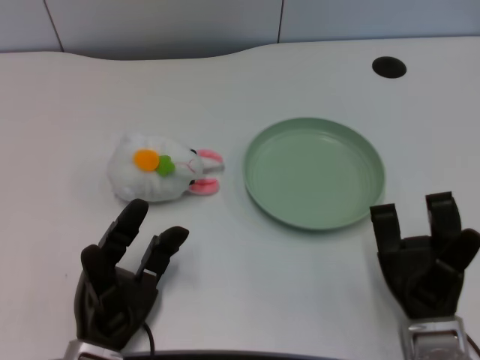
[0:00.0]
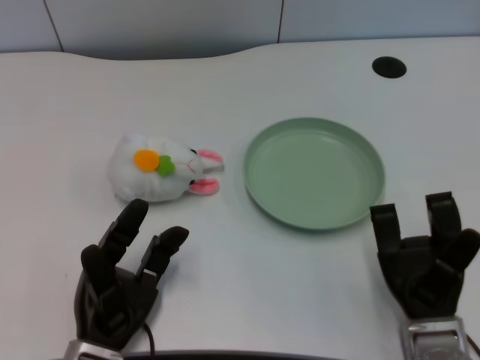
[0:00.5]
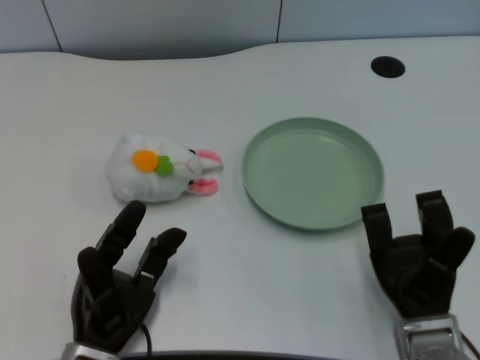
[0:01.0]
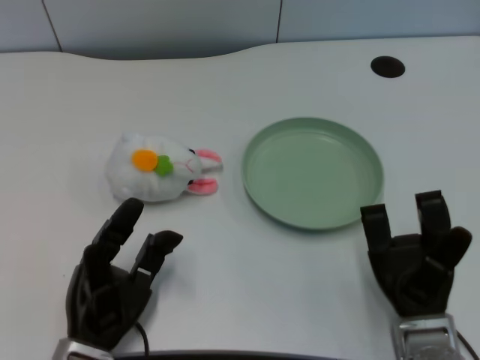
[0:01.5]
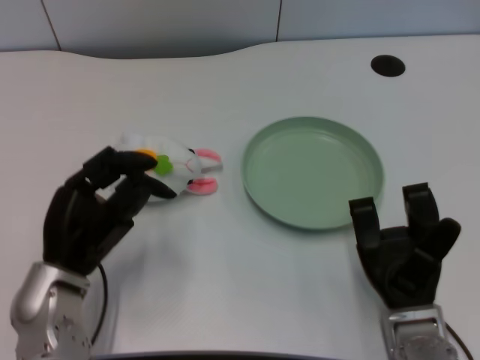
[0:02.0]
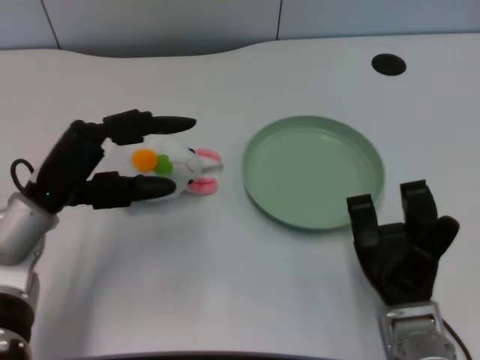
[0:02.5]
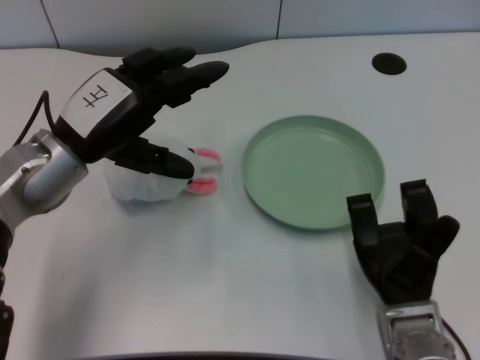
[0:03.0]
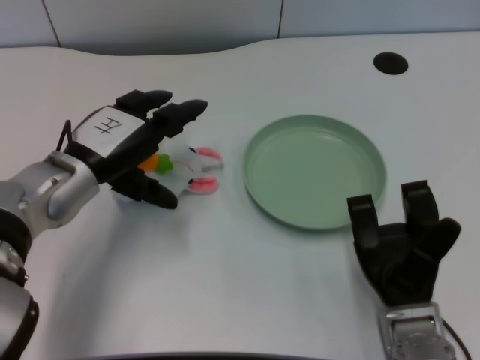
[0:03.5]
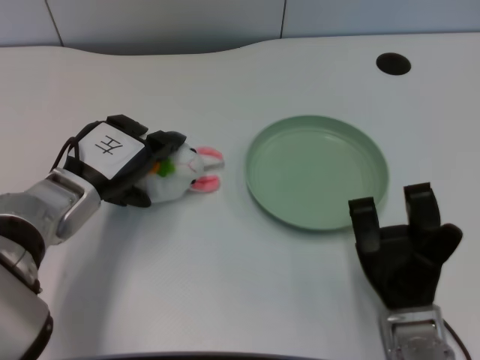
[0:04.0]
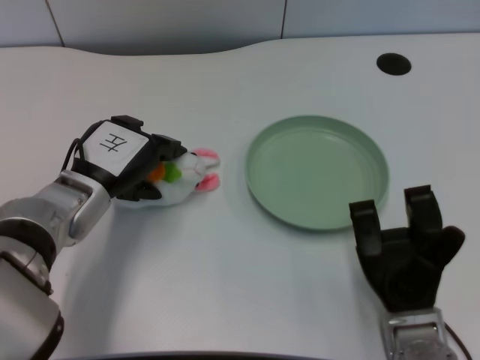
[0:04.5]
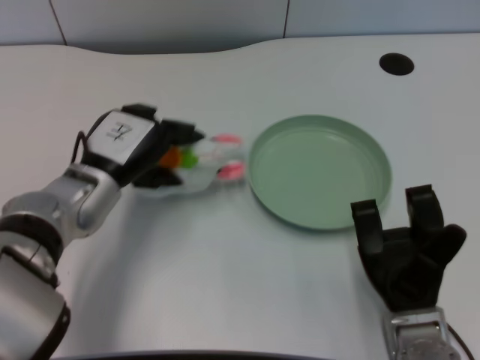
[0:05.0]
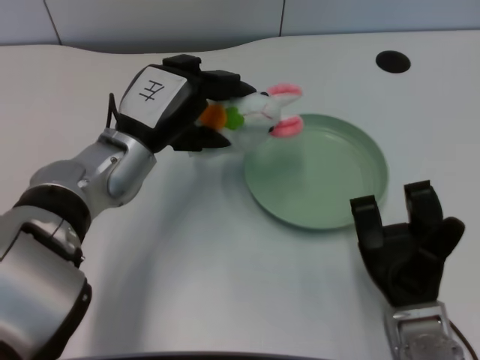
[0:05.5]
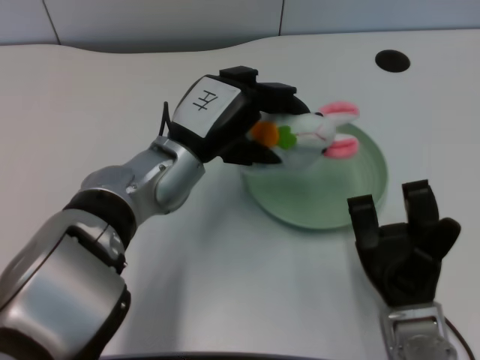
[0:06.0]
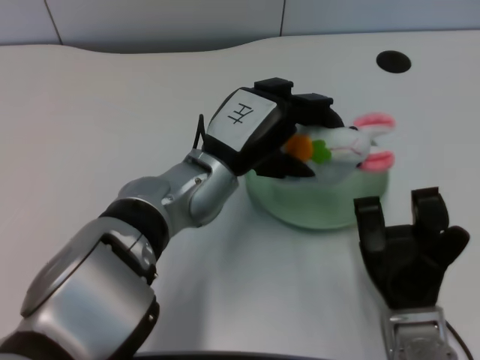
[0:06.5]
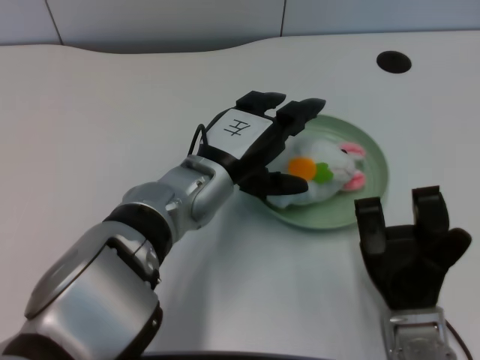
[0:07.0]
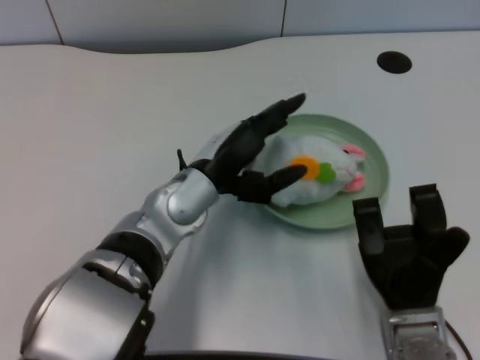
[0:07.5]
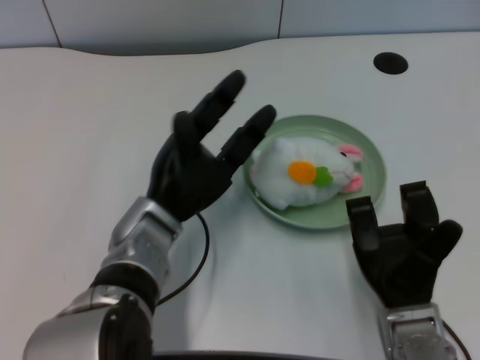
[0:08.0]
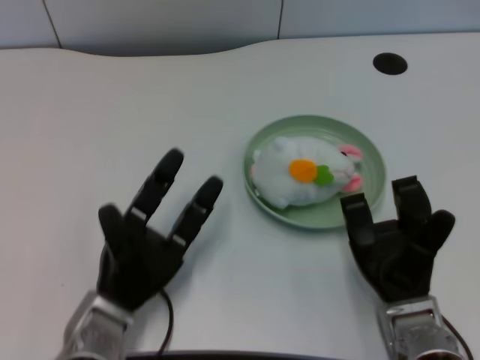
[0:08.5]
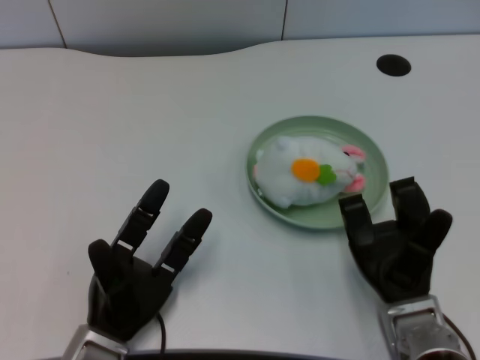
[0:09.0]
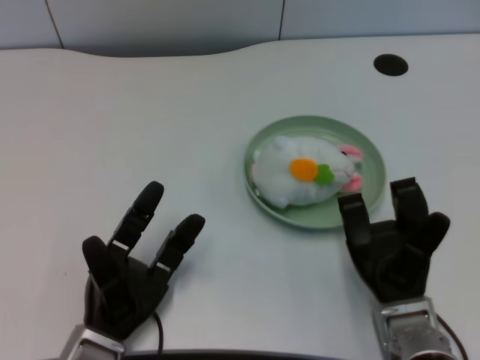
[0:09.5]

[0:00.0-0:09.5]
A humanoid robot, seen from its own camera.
Task of the whole recording: pick up the rabbit doll from the table and place it on the plate.
Step, 0:01.5 to 0:04.5: Grasp the rabbit doll with the left gripper.
Step, 0:05.0 to 0:06.5: Place the rabbit doll into the plate with the left gripper.
0:02.0 to 0:04.0: The left hand moves forward, roughly 10 cm.
0:04.0 to 0:05.5: The left hand shifts roughly 5 cm to the right.
0:05.5 to 0:07.5: The left hand moves to the right, approximately 5 cm.
0:07.5 to 0:09.5: The left hand moves downward, backward and to the left, roughly 20 cm.

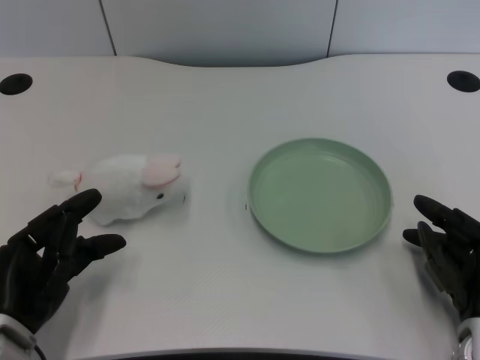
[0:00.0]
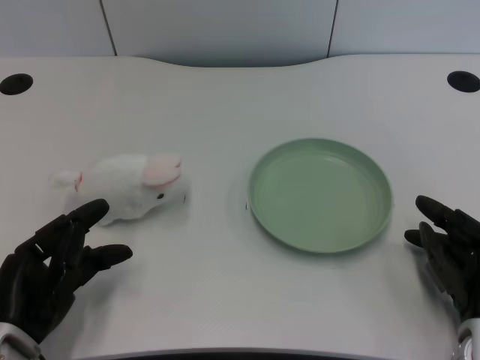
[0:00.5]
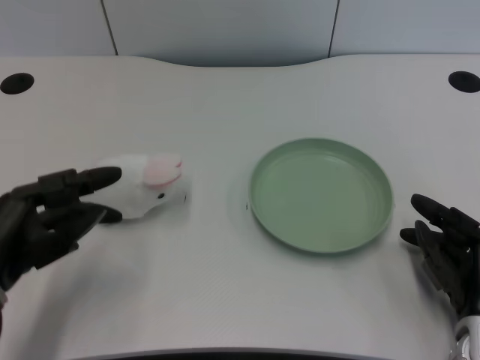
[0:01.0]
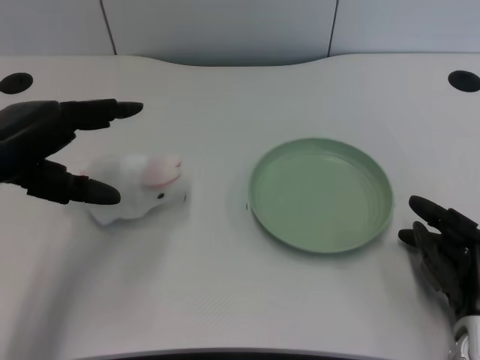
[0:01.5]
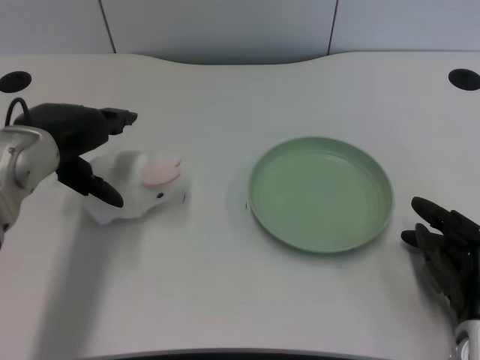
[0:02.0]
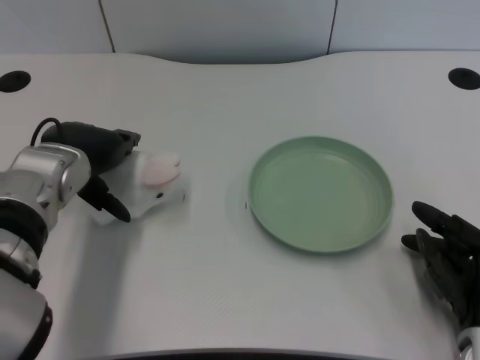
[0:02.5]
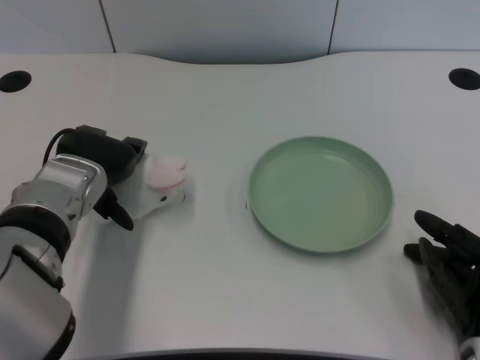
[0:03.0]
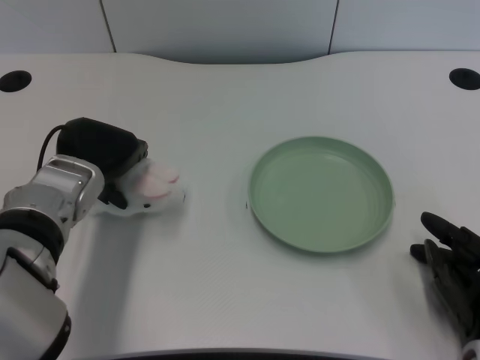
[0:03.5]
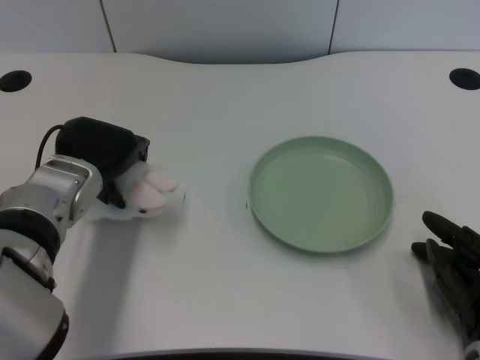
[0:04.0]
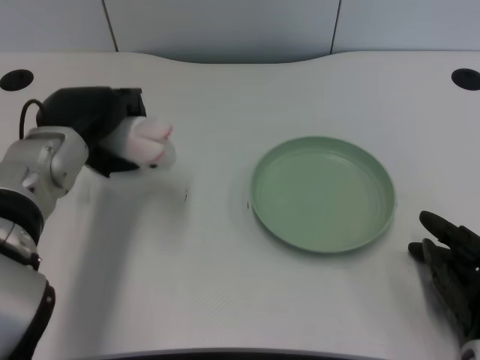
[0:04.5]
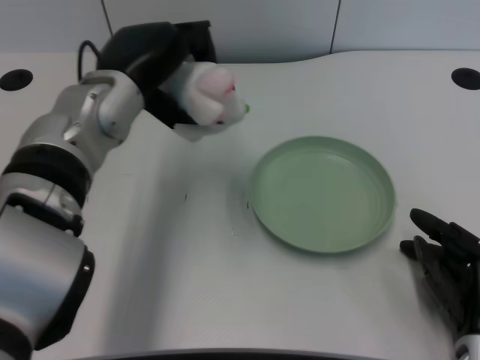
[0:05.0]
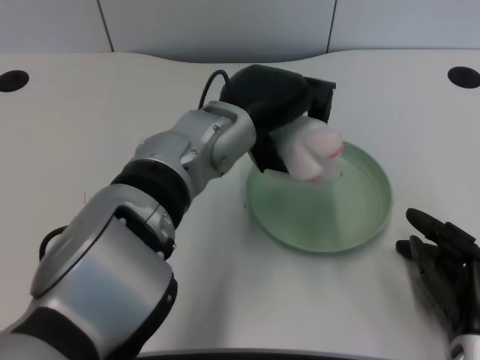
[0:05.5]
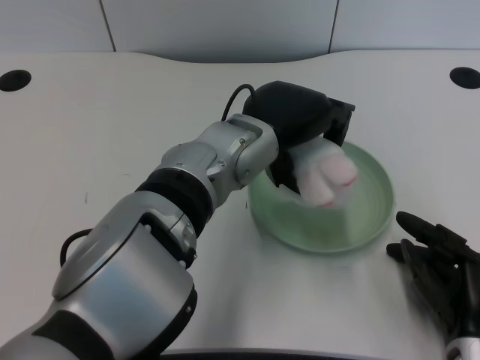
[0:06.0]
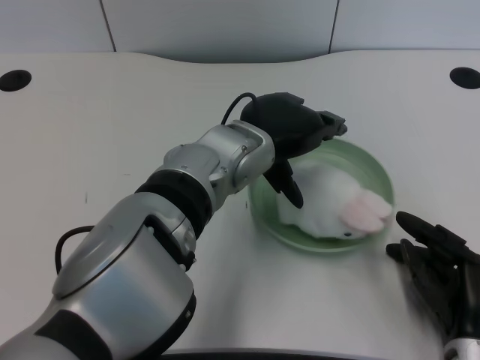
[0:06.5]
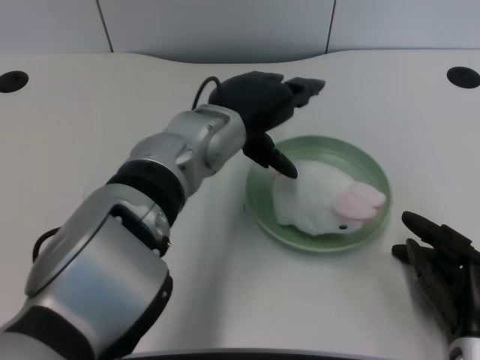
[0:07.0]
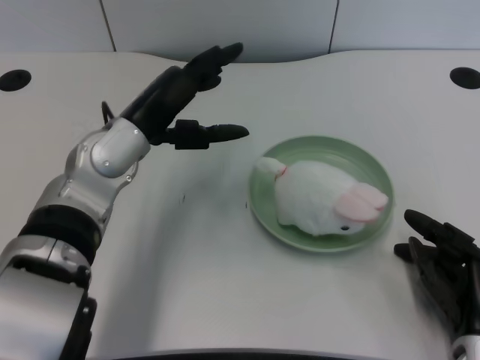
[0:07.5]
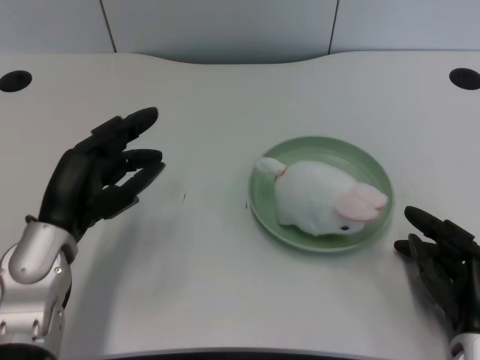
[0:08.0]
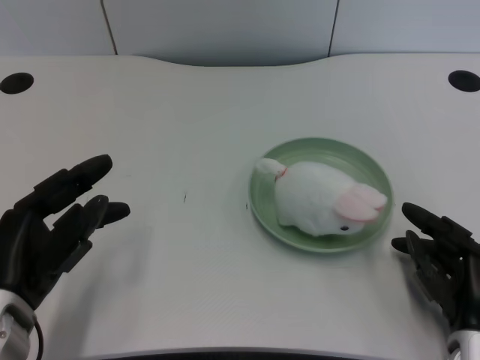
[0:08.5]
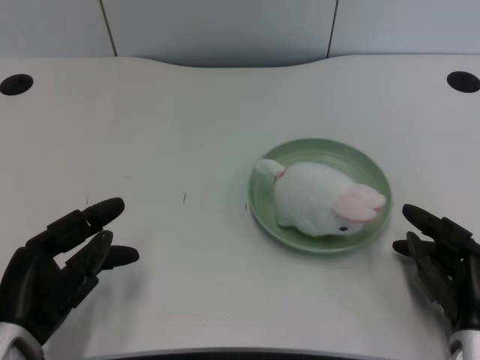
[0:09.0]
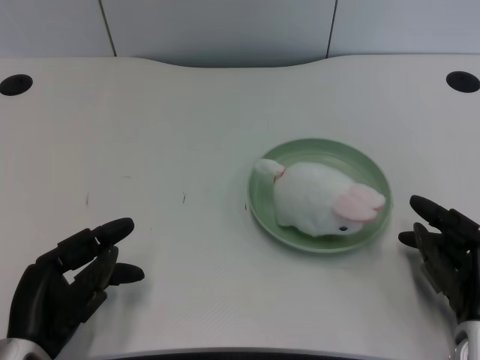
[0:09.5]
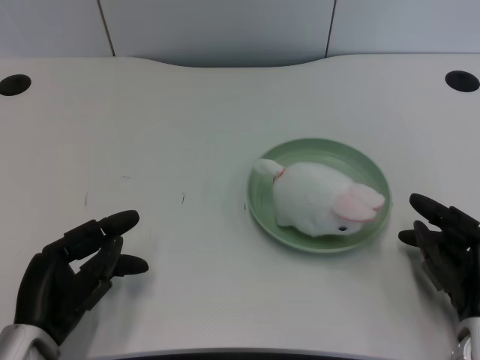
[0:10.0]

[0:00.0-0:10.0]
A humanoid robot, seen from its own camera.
Task of the whole recording: pick up the rabbit doll from the table and place it on the plate.
Step, 0:01.0 to 0:04.0: Grasp the rabbit doll with the left gripper.
Step, 0:04.5 to 0:06.0: Place the rabbit doll into the plate with the left gripper.
0:02.0 to 0:04.0: The left hand heads downward, covering some 5 cm.
0:04.0 to 0:06.0: The left hand is displaced to the right by roughly 15 cm.
0:06.0 to 0:08.0: The left hand heads to the left, covering approximately 20 cm.
0:08.0 to 0:10.0: The left hand travels backward and downward by some 10 cm.

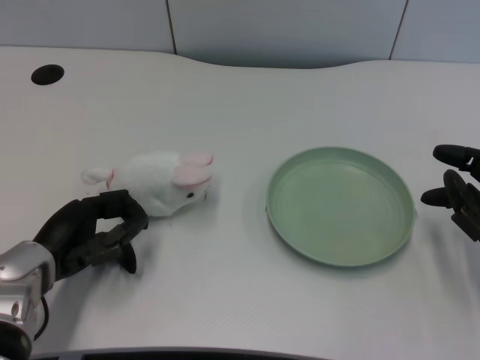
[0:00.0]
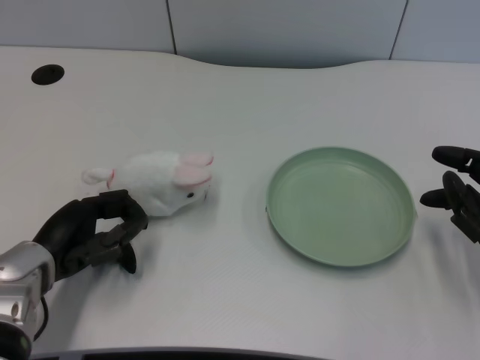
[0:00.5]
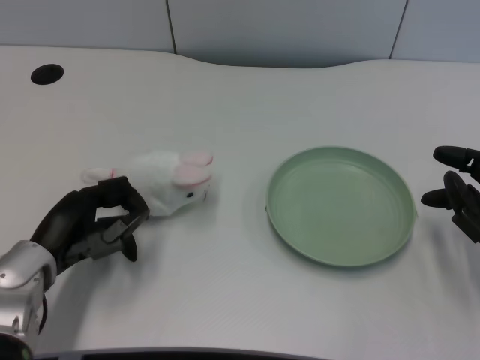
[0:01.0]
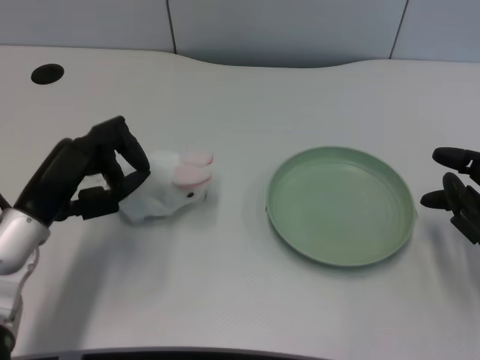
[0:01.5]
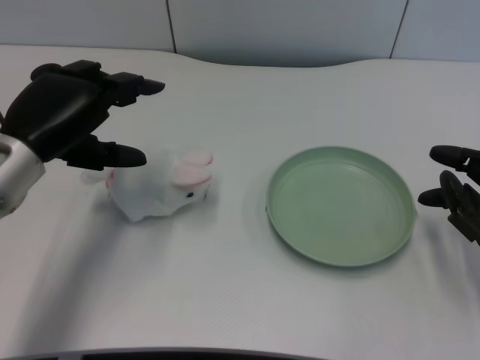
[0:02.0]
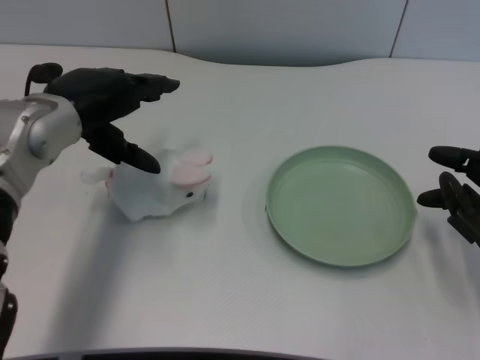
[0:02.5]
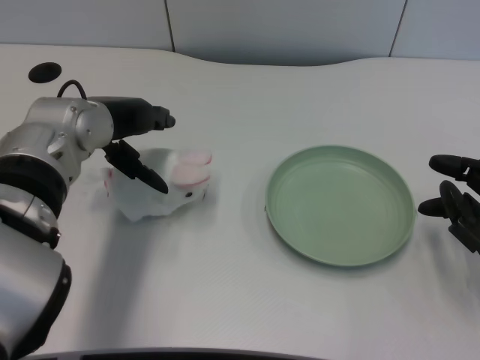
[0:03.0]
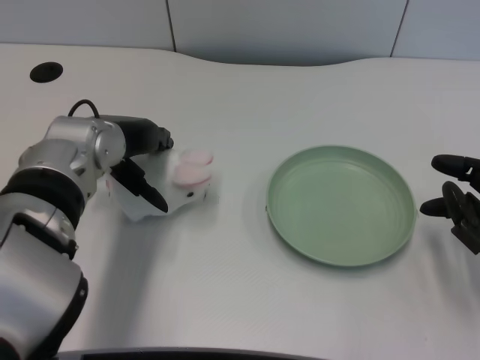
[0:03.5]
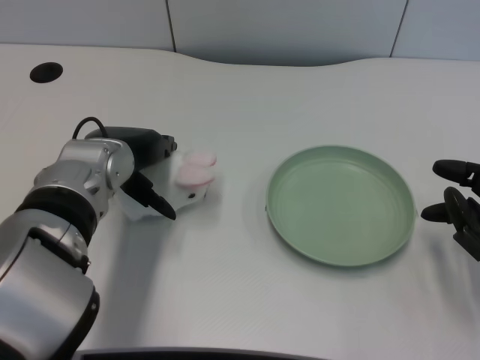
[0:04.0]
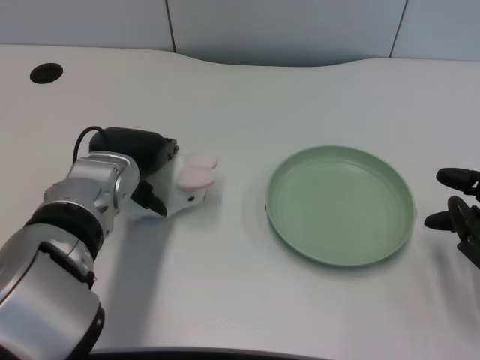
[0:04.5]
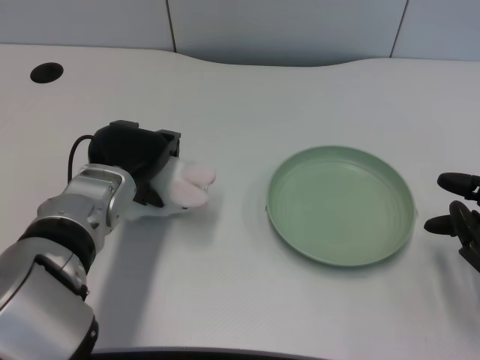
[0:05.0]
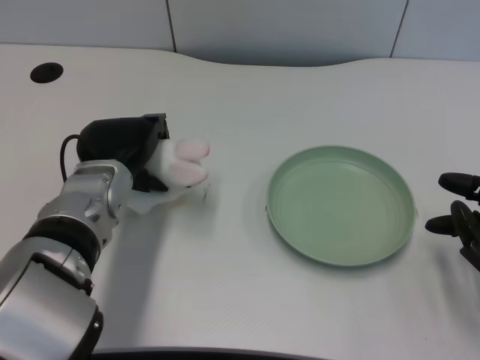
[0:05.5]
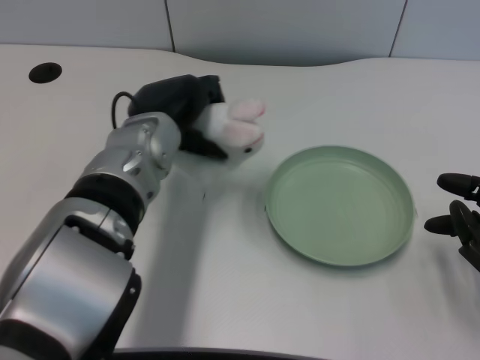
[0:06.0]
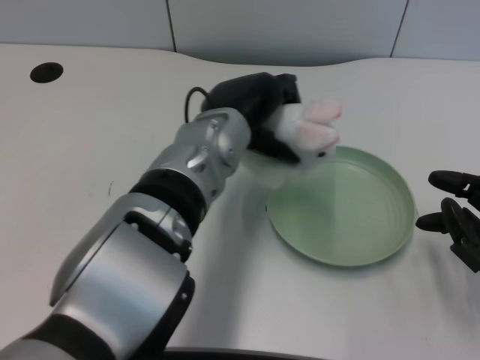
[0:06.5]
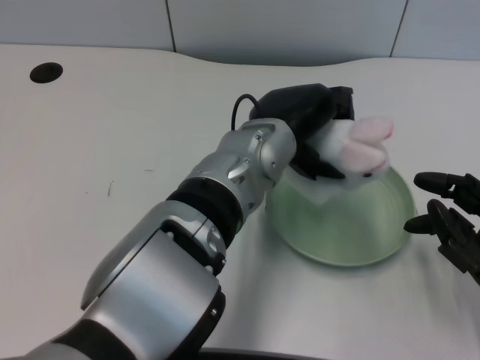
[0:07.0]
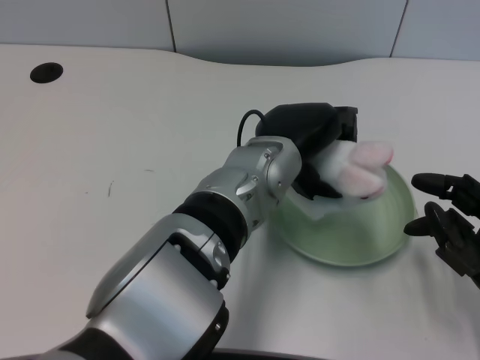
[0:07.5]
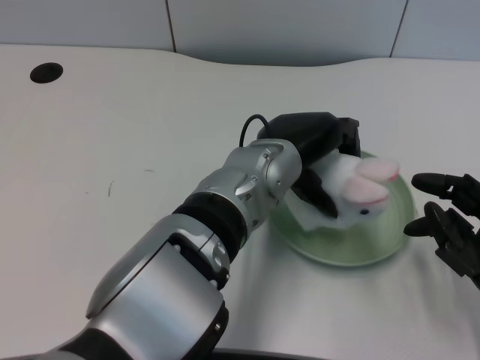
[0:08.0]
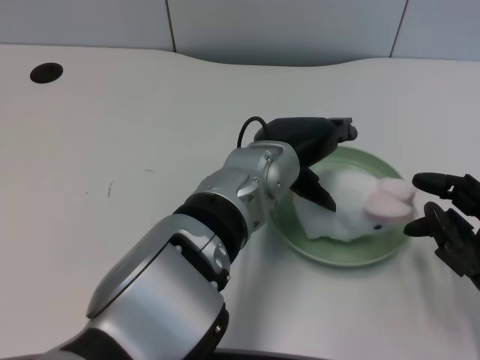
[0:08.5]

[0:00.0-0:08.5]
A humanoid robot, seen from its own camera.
Task of the whole recording: pick up the rabbit doll from the table and place it on the plate.
Step, 0:01.0 to 0:05.0: Grasp the rabbit doll with the left gripper.
0:02.0 to 0:04.0: The left hand goes some 10 cm to the right.
0:04.0 to 0:06.5: The left hand goes approximately 10 cm to the right.
